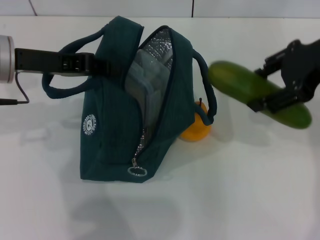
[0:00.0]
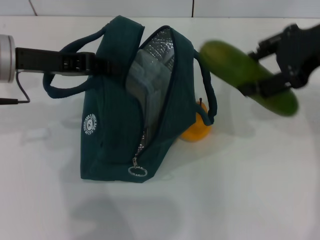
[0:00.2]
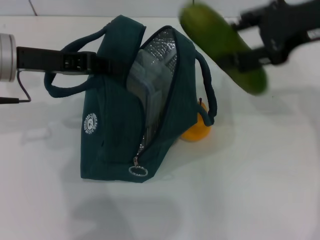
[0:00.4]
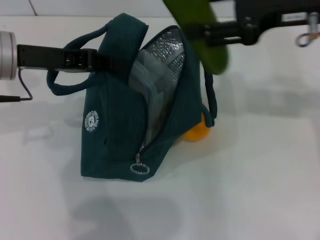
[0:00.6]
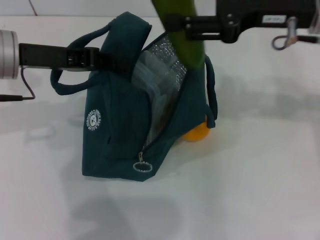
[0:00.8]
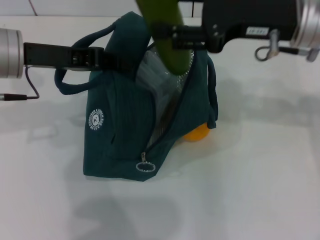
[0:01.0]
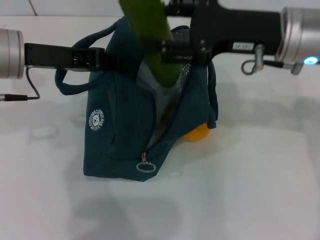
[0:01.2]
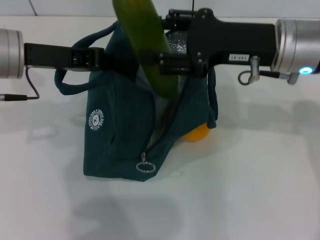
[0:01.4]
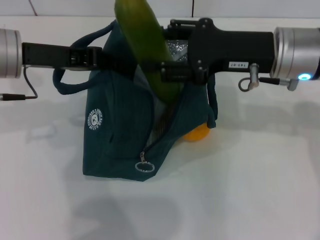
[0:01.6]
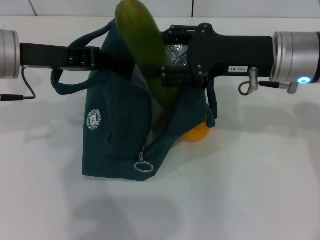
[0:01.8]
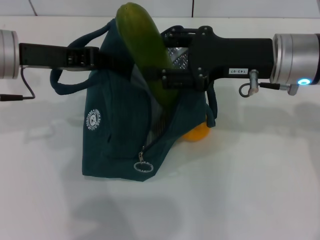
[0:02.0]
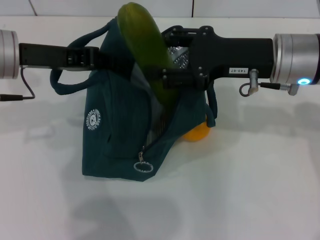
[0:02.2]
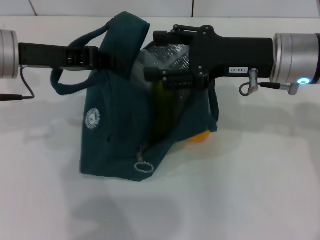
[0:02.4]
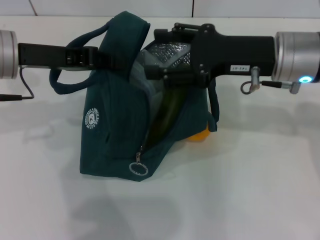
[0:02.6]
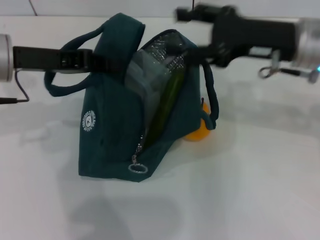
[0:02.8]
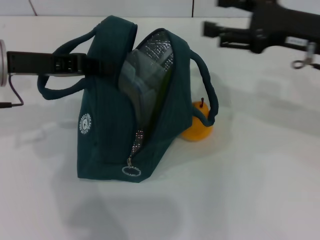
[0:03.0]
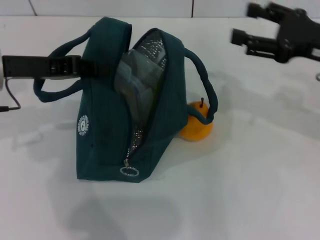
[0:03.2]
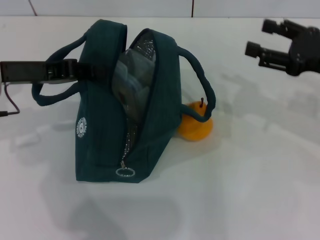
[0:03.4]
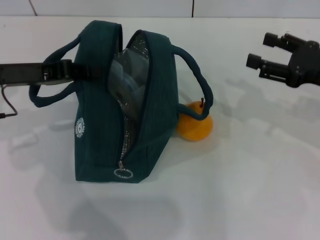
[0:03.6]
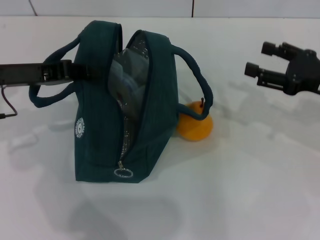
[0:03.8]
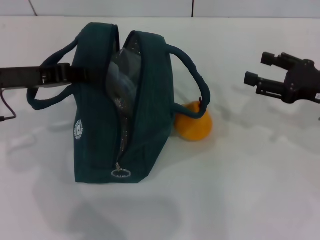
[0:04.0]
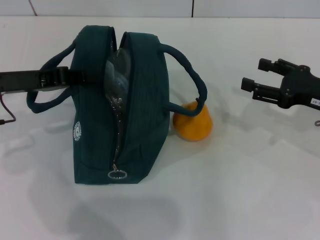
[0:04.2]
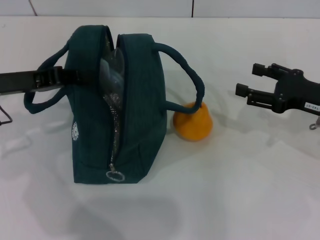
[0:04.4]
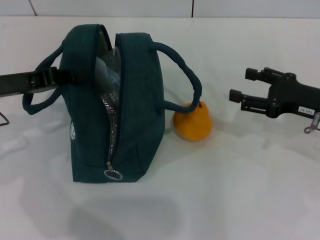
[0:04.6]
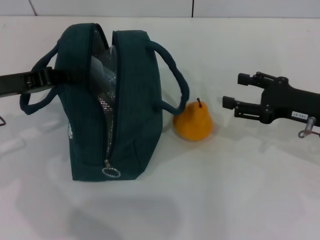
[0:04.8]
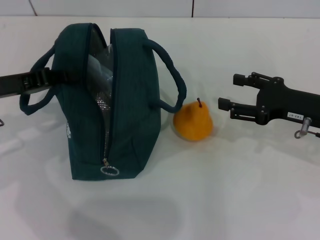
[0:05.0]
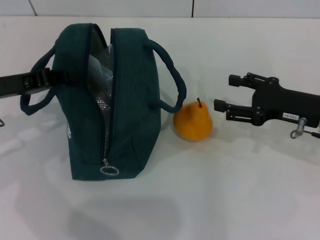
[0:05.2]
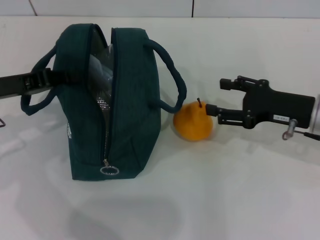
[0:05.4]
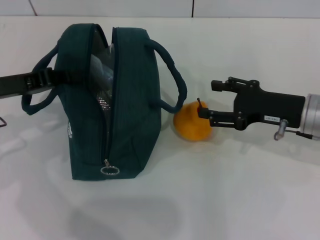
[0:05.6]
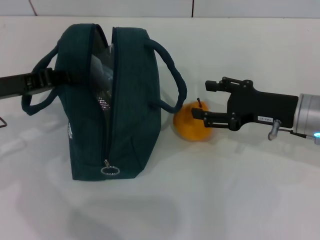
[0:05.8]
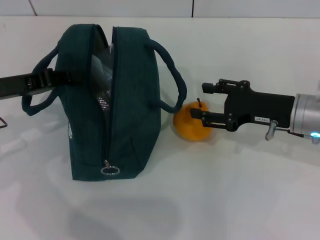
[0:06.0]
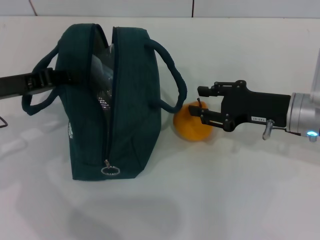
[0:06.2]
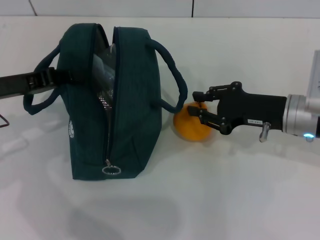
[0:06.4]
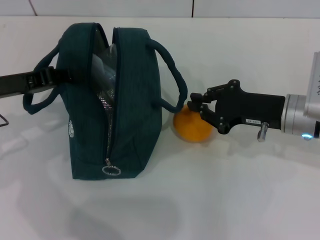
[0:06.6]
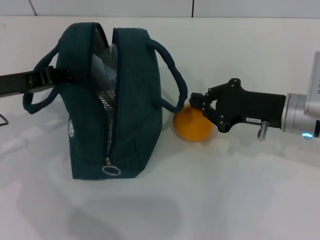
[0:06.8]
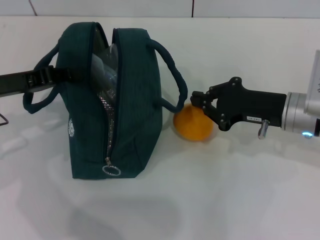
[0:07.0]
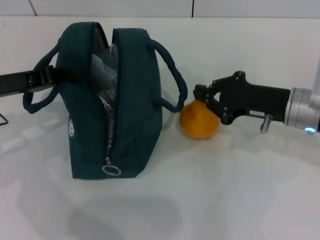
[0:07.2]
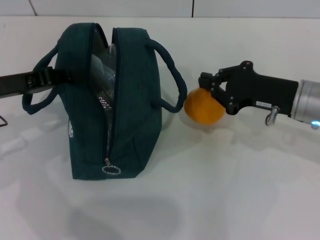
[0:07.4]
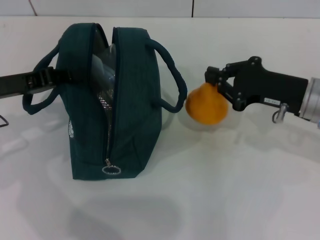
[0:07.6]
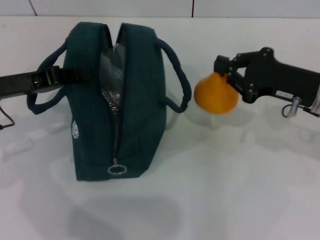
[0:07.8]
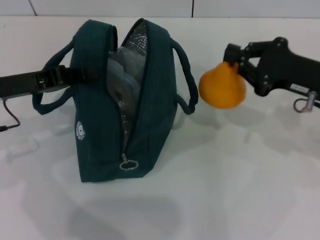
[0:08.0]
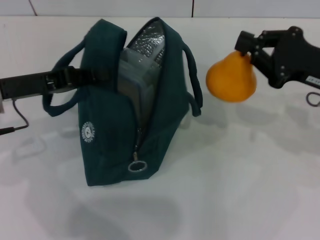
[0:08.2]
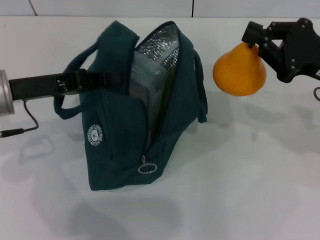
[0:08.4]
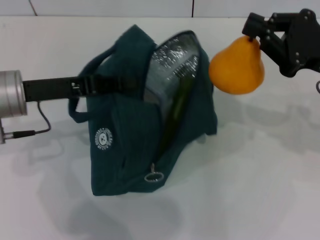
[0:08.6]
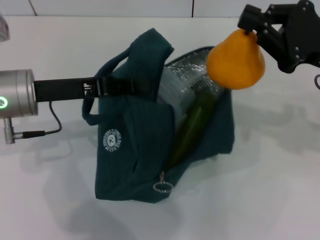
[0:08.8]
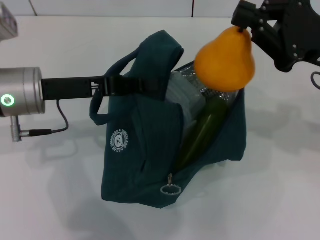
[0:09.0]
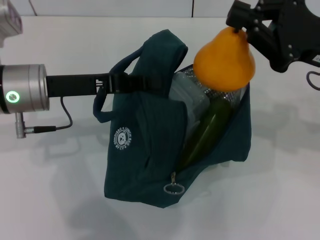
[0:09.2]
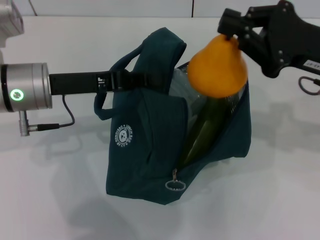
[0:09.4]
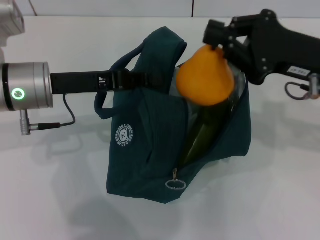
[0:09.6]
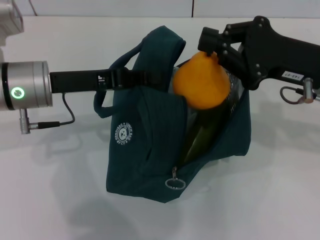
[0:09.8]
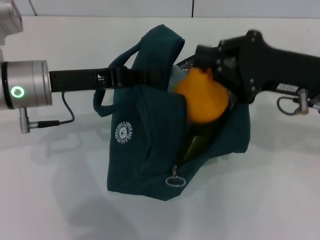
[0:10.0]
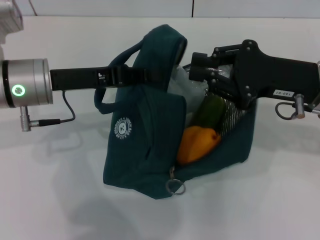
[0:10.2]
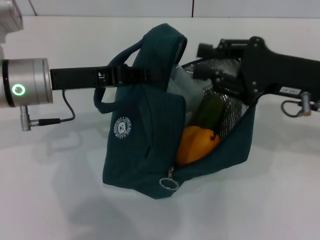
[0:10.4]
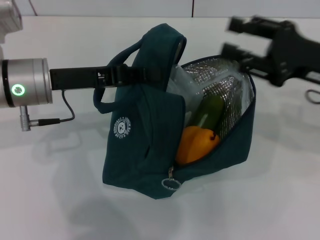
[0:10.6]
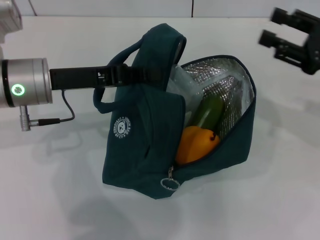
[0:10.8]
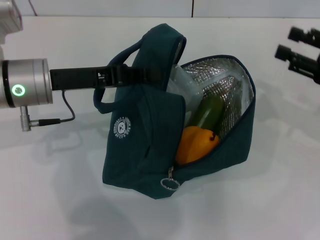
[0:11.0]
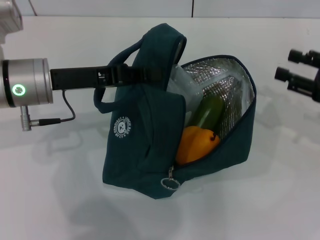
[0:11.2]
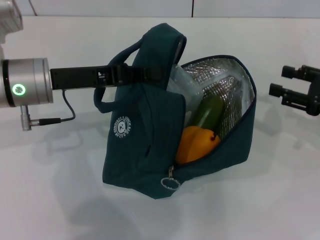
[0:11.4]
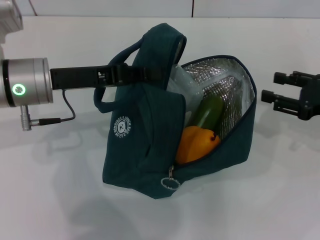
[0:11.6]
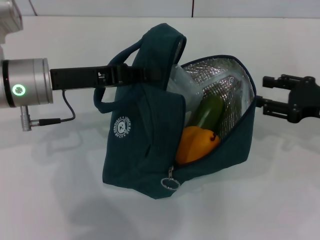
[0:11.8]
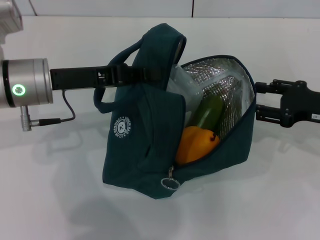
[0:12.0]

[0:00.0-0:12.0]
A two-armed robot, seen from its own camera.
Step, 0:00.0 to 0:02.6: Put the cucumber into the lunch bag with your right hand.
Step, 0:02.8 to 0:07.0: Grab the pear with your right hand.
Step, 0:07.2 to 0:10.4: Secure the lunch bag with your left hand.
0:00.0 to 0:01.6: The right gripper shifts some 10 cm downward and to the left.
0:01.6 to 0:03.0: The right gripper moves to the right, roughly 5 cm.
0:03.0 to 0:04.4: The right gripper shifts roughly 10 cm downward. The left gripper moves about 5 cm.
0:04.4 to 0:06.0: The right gripper goes some 5 cm to the left.
0:06.0 to 0:07.6: The right gripper closes up.
0:07.6 to 0:09.0: The right gripper goes roughly 10 cm upward. Meanwhile the left gripper heads to the right, covering about 10 cm.
0:10.4 to 0:12.0: The right gripper heads to the right and downward, covering approximately 10 cm, and opens.

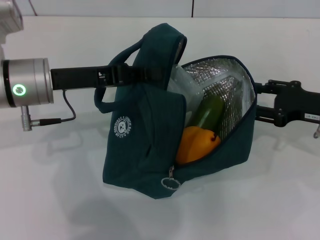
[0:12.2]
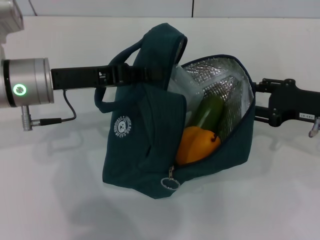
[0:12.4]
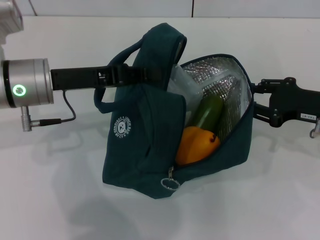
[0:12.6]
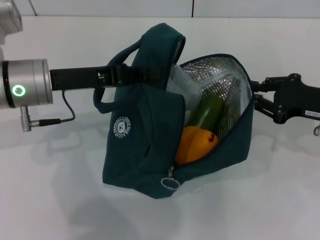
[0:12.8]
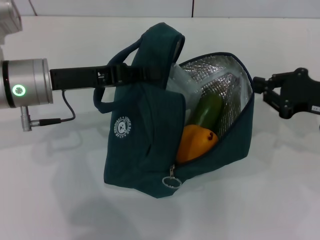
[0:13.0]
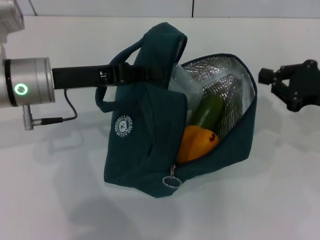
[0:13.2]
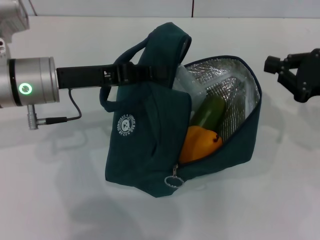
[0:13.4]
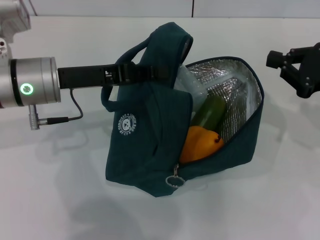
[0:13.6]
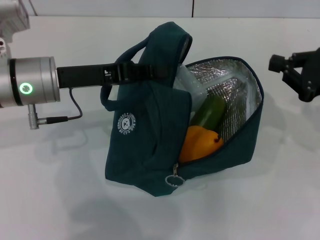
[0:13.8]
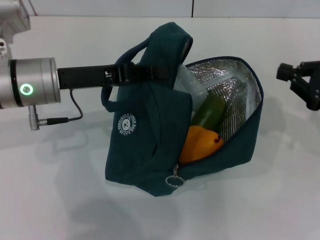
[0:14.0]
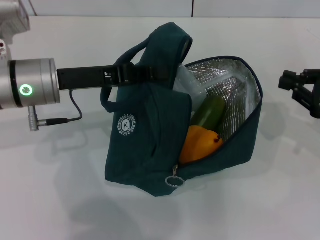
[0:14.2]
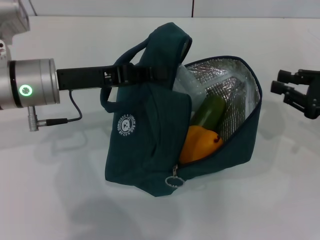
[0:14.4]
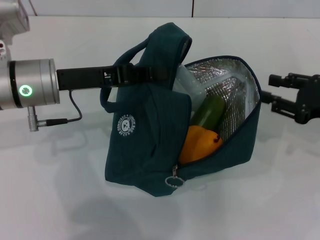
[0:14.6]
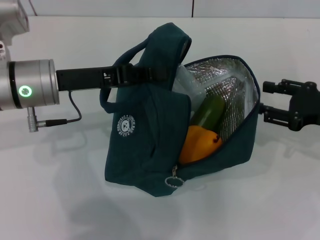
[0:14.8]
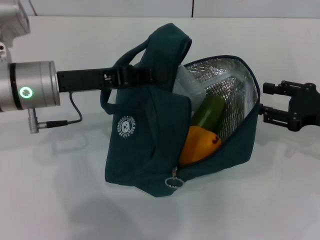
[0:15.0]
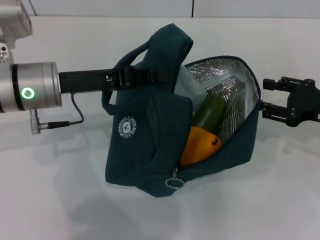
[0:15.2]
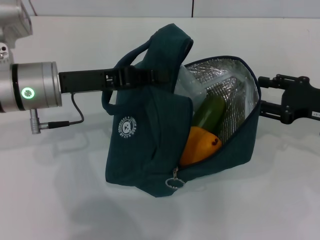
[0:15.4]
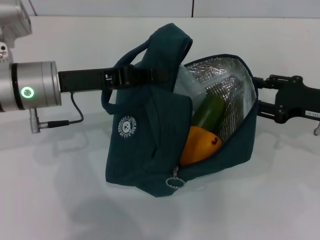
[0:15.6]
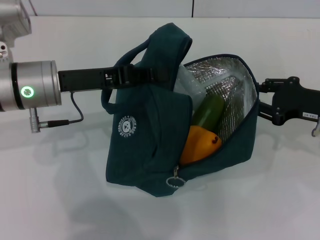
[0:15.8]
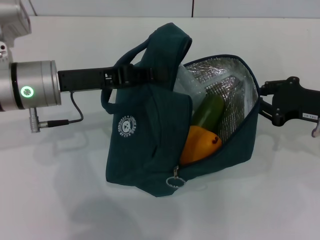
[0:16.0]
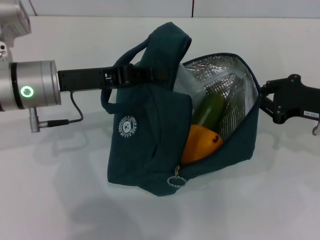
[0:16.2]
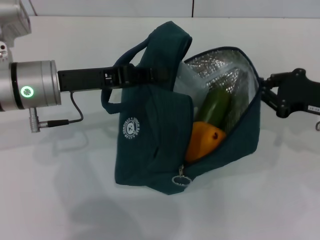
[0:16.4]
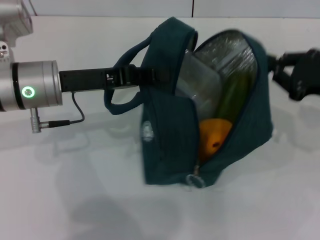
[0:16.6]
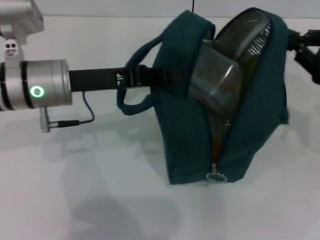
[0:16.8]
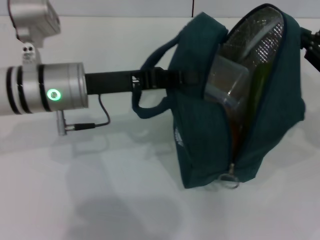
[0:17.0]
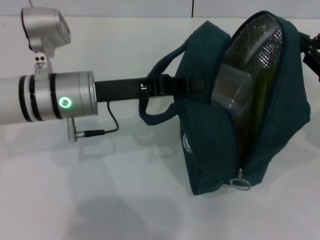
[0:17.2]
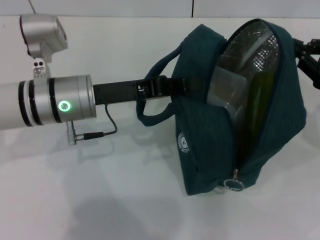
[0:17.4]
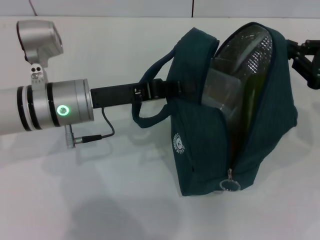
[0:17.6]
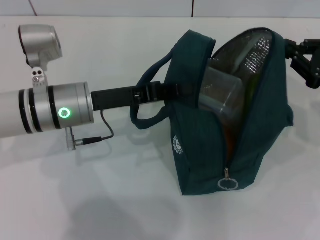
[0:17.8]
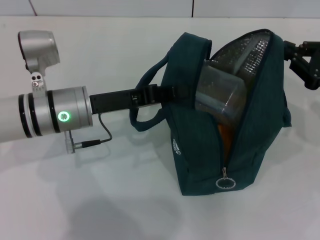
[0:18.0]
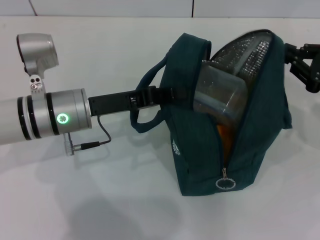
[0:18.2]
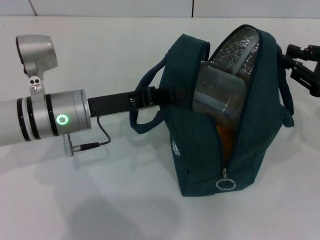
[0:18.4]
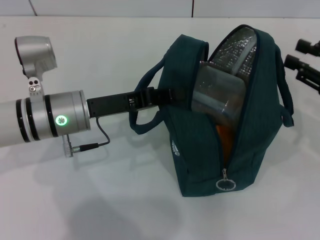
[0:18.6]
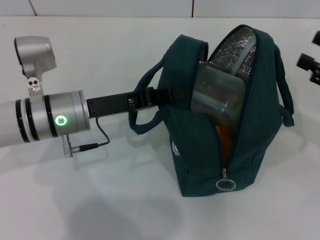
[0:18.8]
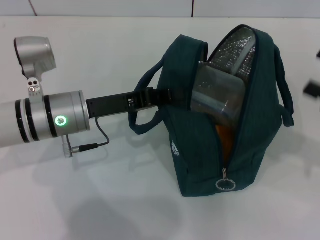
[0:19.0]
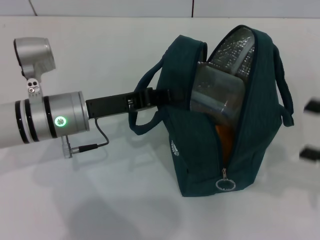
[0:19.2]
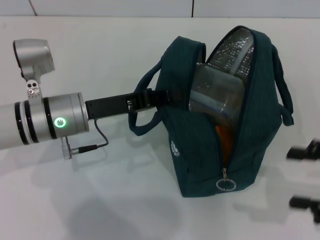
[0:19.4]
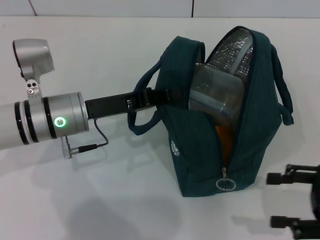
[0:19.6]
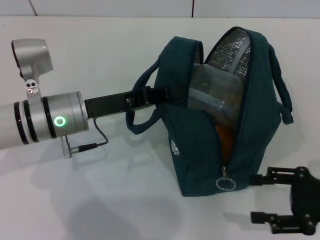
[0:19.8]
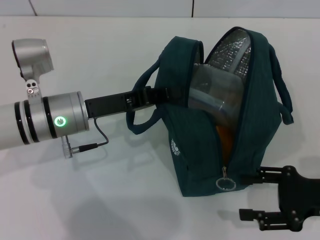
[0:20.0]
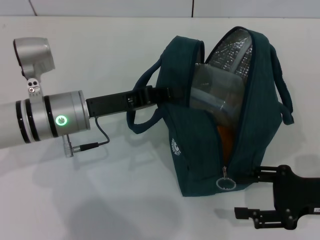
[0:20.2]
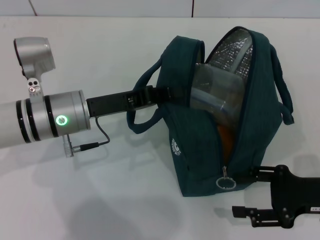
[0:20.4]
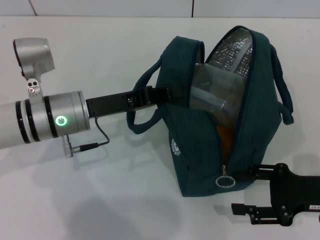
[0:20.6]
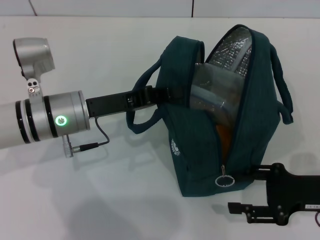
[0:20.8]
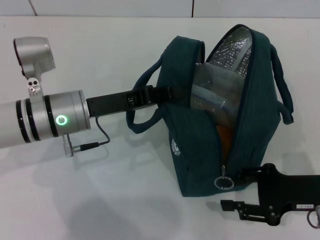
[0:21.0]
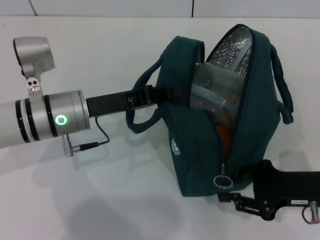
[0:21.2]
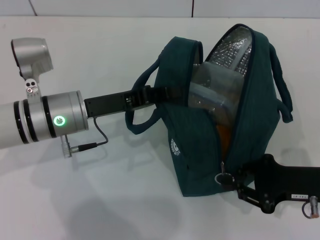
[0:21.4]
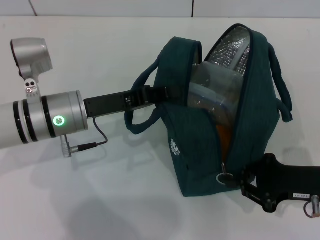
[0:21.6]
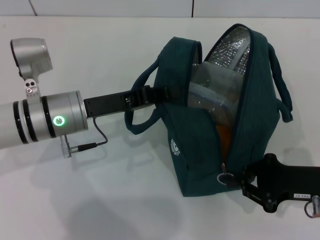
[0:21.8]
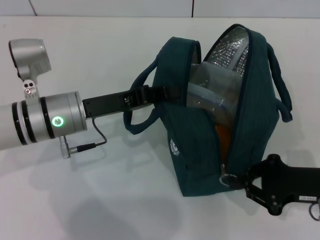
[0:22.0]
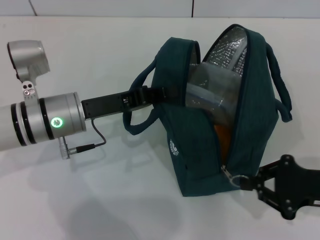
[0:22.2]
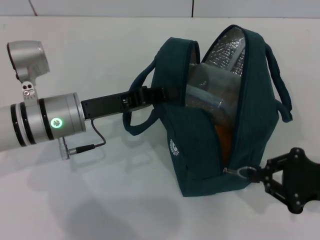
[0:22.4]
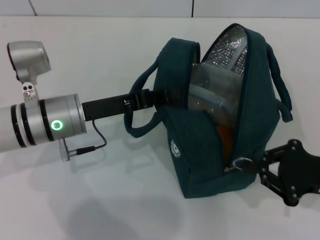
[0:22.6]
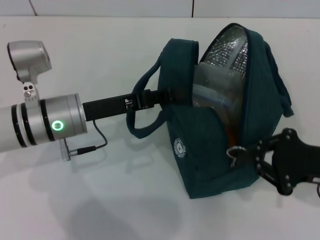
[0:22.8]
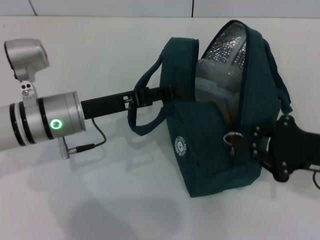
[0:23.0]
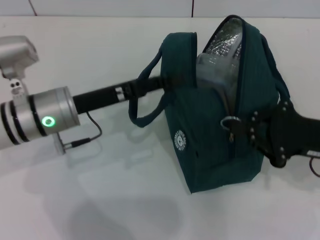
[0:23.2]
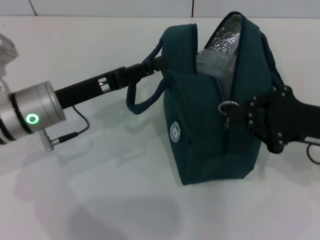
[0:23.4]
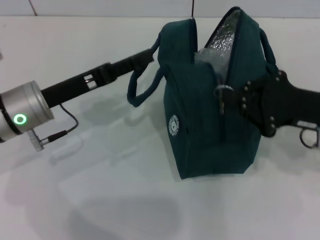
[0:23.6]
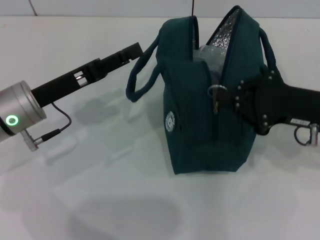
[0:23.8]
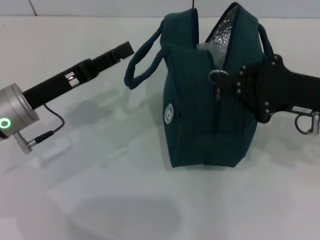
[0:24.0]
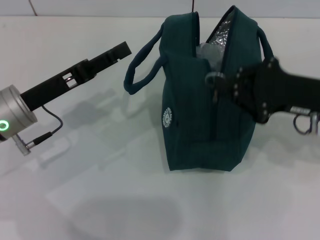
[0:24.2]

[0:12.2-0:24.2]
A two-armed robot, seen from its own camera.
Step, 0:12.2 to 0:18.6: Hold the lunch bag with your right hand.
Step, 0:18.8 to 0:23.8: Hold the lunch bag with your left hand.
0:12.2 to 0:13.8: The right gripper closes.
0:13.8 to 0:15.2: The right gripper opens its fingers.
0:15.2 to 0:16.6: The right gripper closes up.
0:16.6 to 0:18.2: The left gripper shifts by roughly 5 cm.
0:18.2 to 0:19.8: The right gripper is displaced backward and downward by about 10 cm, and opens its fingers.
0:19.8 to 0:21.2: The right gripper changes place by roughly 5 cm, and closes up.
0:21.2 to 0:22.6: The right gripper closes.
0:22.6 to 0:24.2: The left gripper shifts some 5 cm to the left, and opens. Meanwhile the right gripper goes some 10 cm forward and upward.
